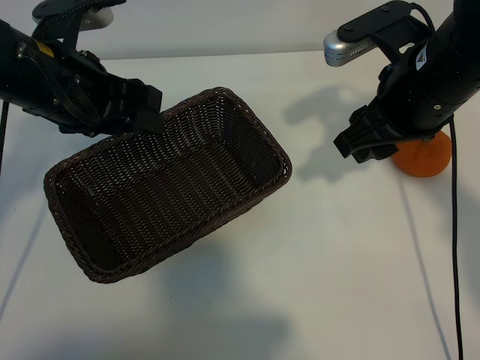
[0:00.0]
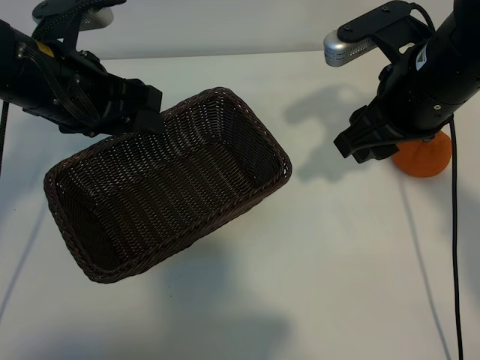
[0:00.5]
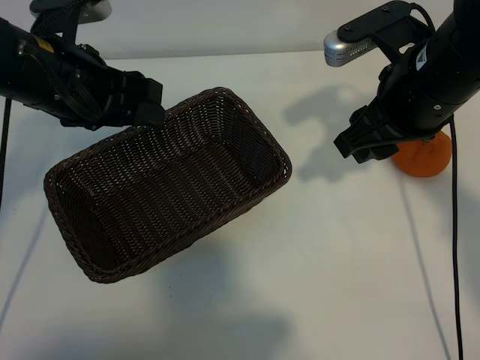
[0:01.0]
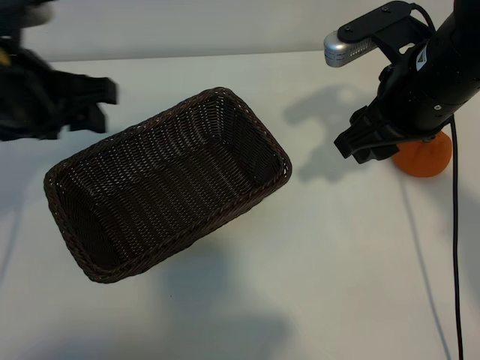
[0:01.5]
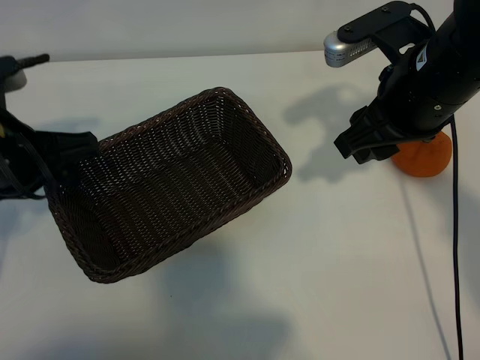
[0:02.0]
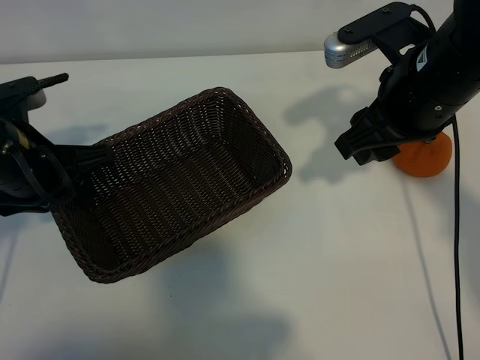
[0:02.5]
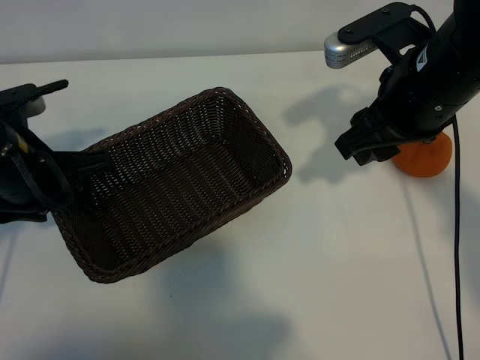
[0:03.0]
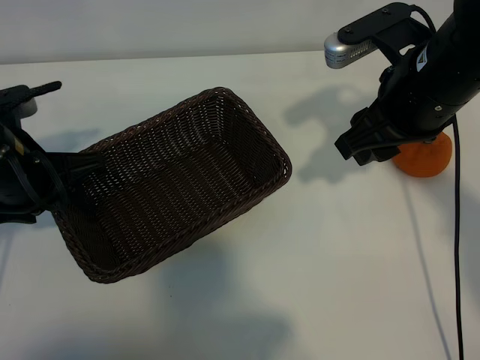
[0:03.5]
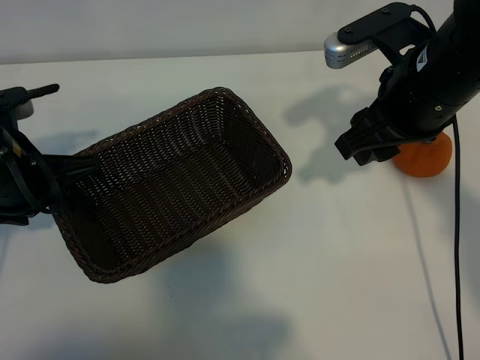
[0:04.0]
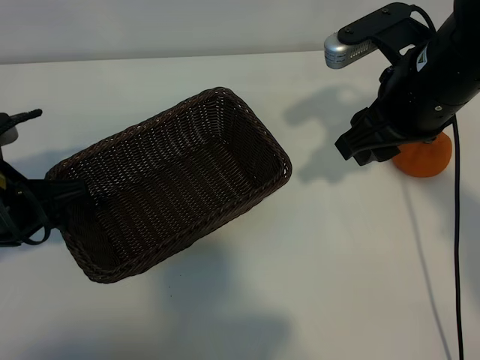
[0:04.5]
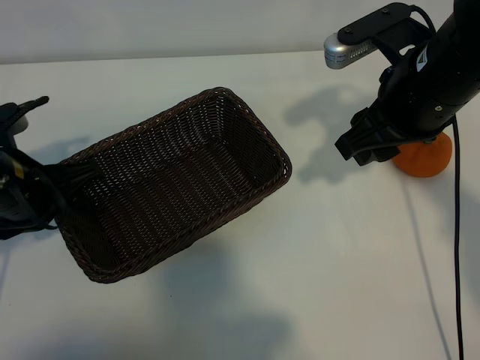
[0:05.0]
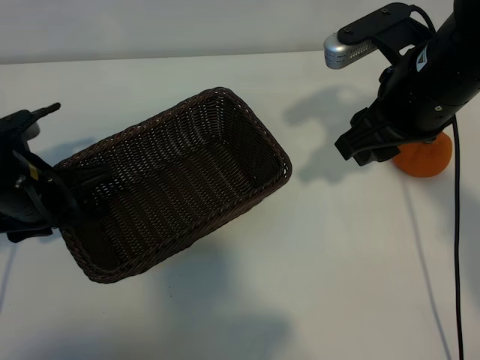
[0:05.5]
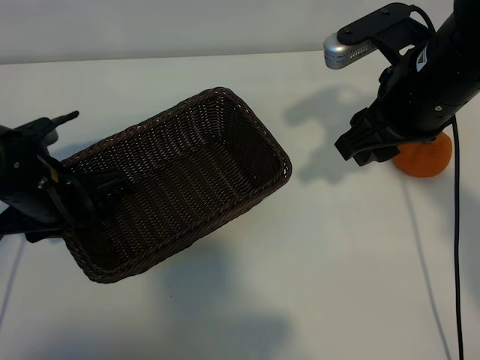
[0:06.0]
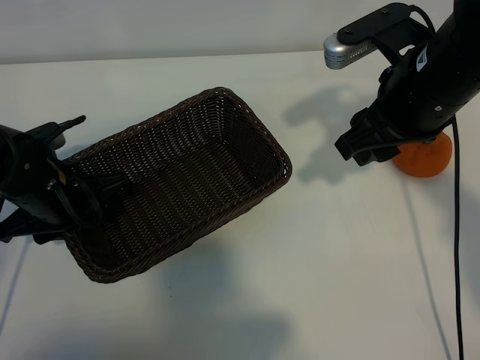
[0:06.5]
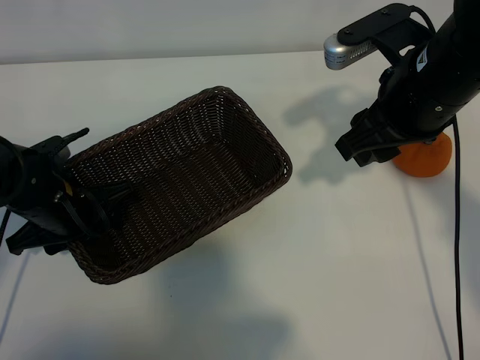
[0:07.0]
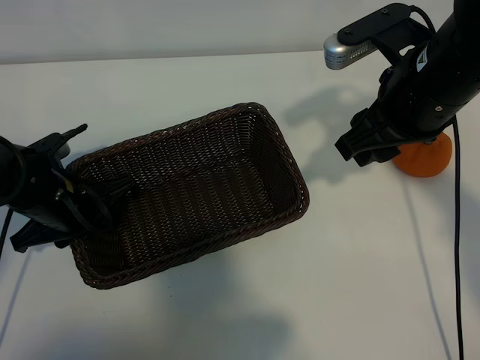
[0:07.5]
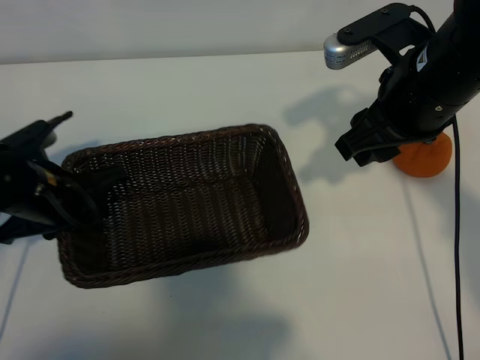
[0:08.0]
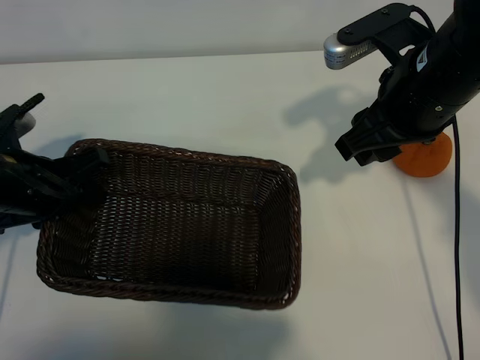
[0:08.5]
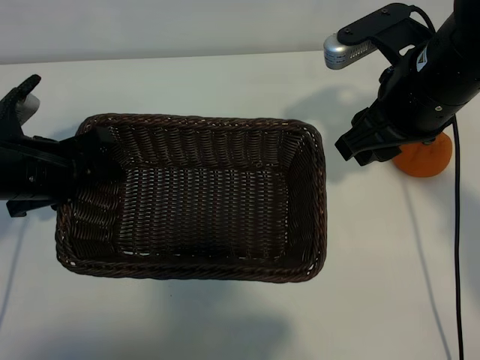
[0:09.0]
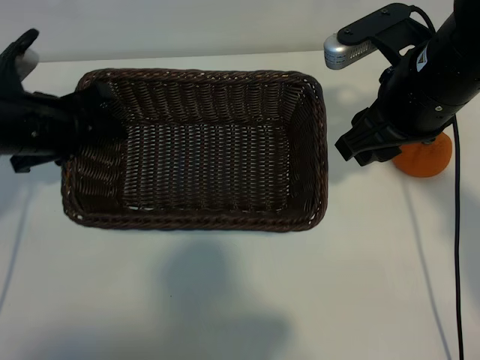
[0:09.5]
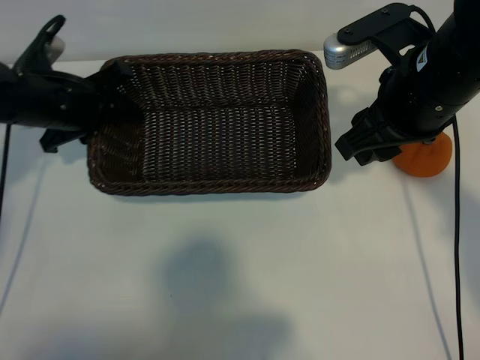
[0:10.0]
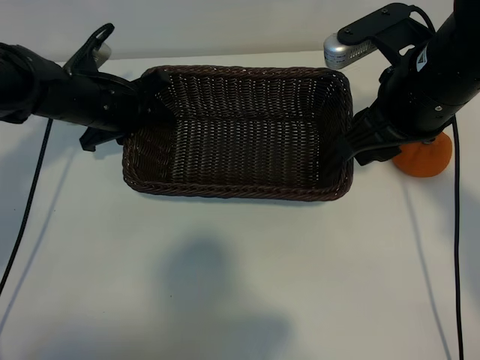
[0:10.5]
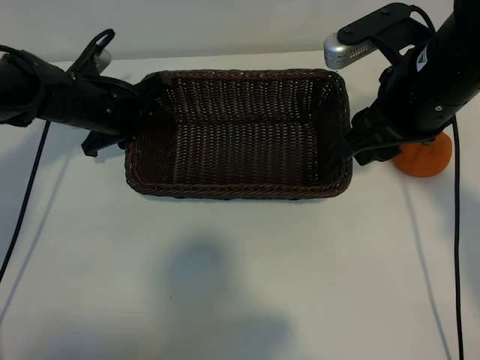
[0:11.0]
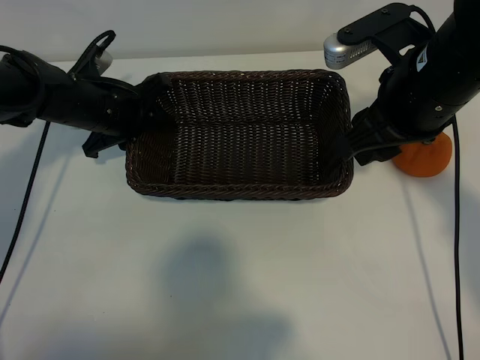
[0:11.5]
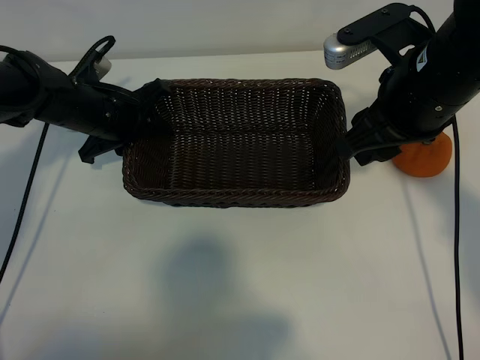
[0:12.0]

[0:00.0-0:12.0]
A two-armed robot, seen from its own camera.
Task of the whole recording: pick up the orange and put it into the basket.
Step, 0:01.0 to 0:07.5: Grasp the basket with left gripper.

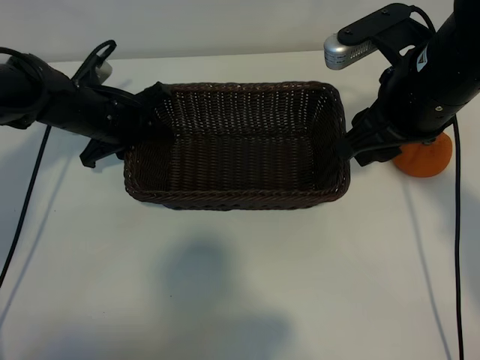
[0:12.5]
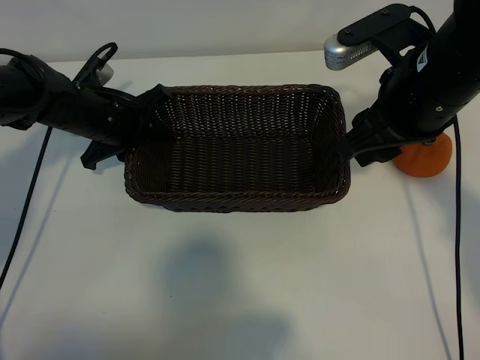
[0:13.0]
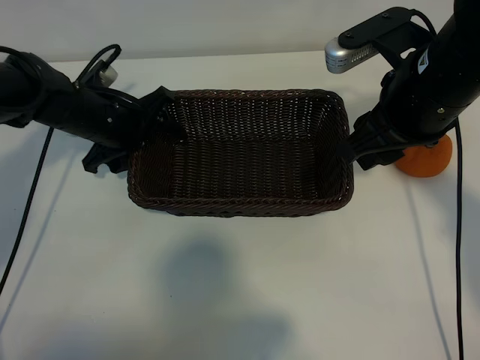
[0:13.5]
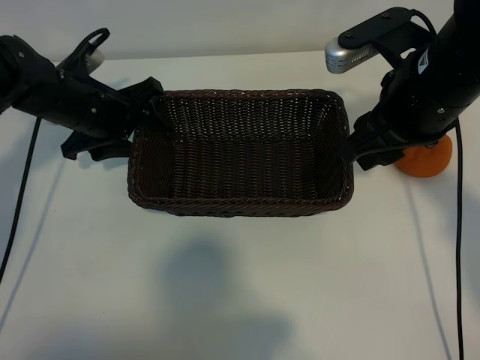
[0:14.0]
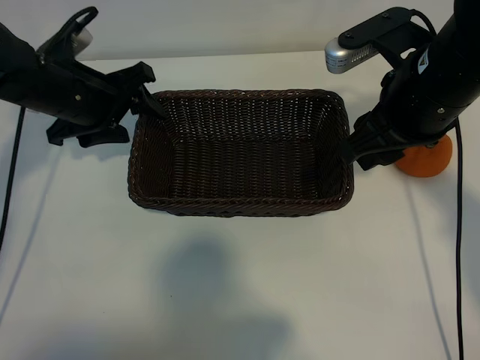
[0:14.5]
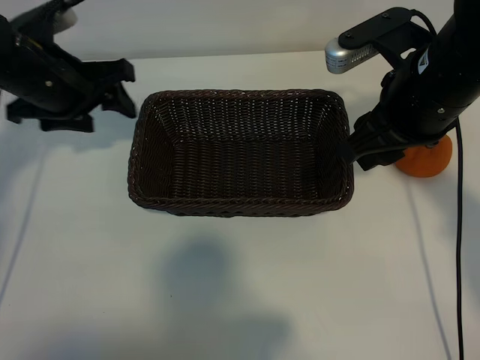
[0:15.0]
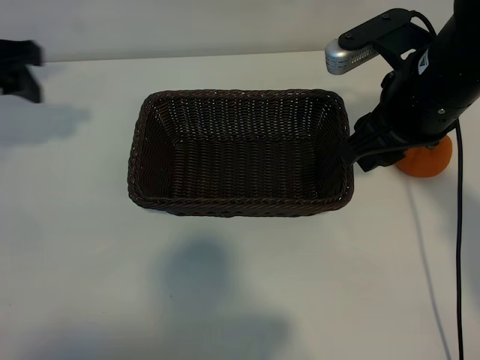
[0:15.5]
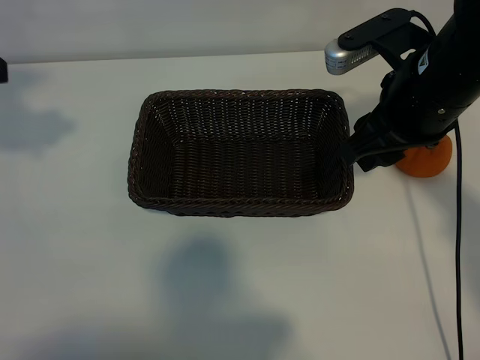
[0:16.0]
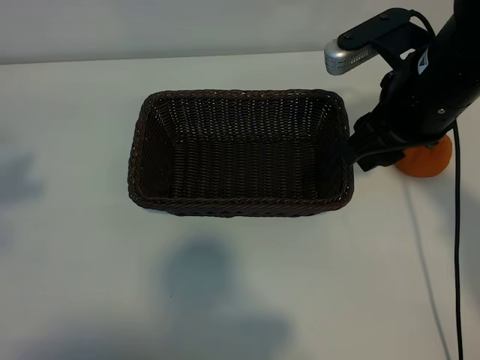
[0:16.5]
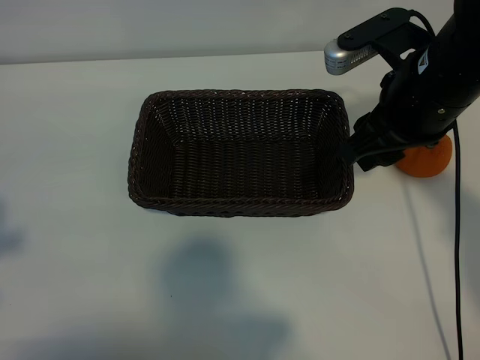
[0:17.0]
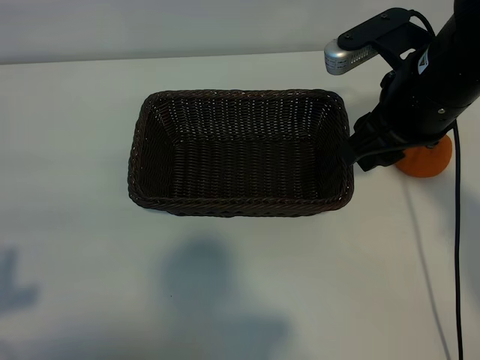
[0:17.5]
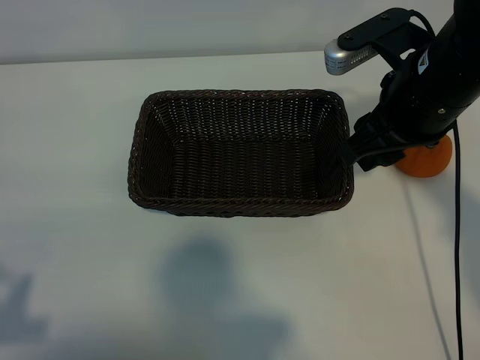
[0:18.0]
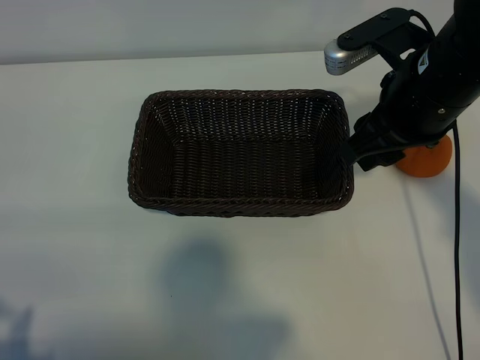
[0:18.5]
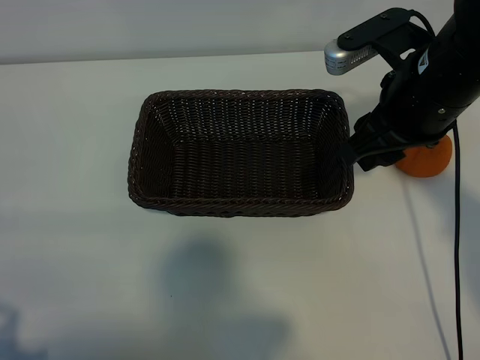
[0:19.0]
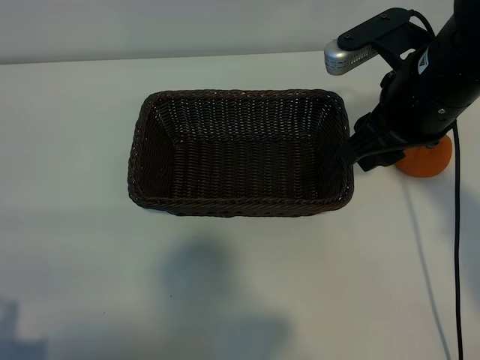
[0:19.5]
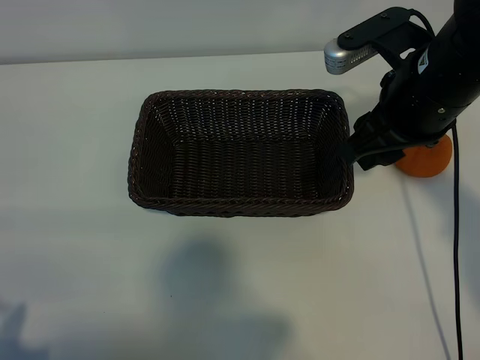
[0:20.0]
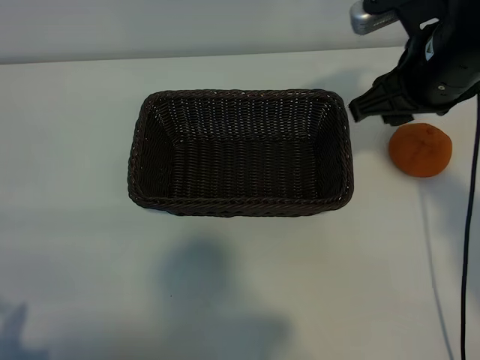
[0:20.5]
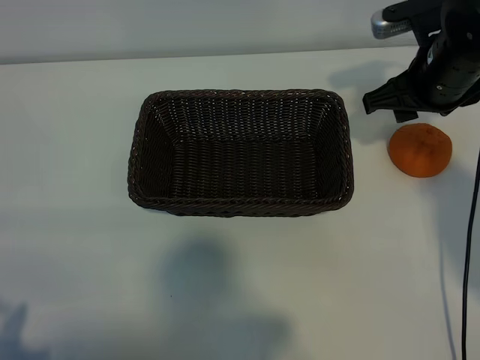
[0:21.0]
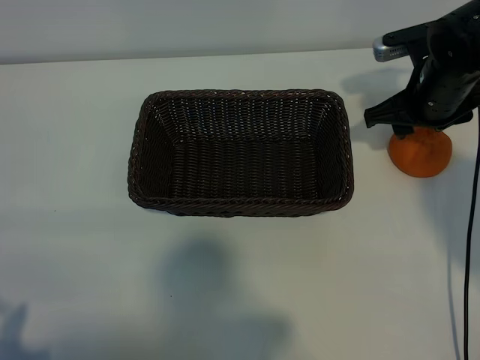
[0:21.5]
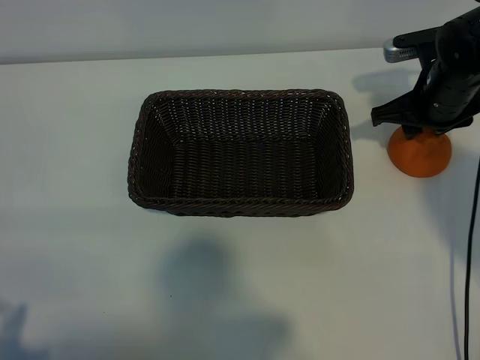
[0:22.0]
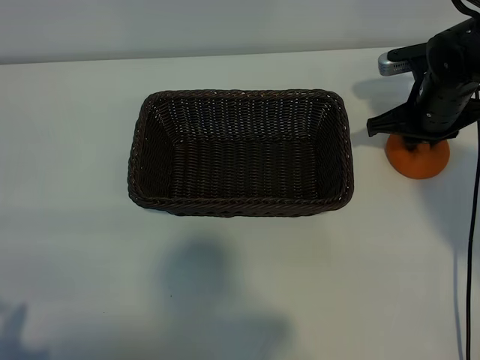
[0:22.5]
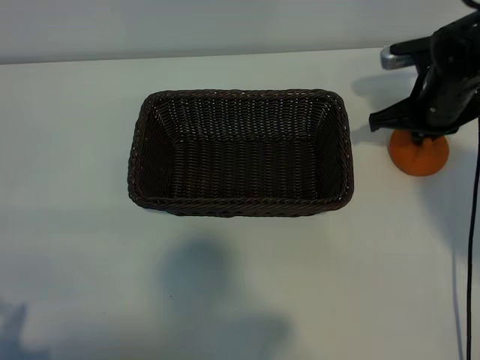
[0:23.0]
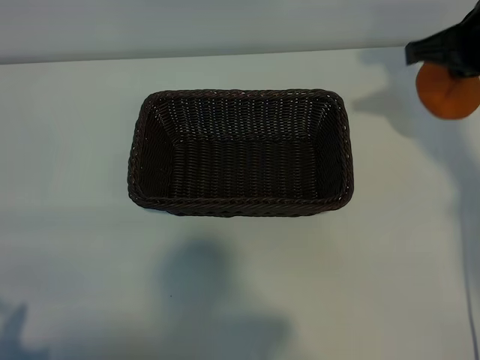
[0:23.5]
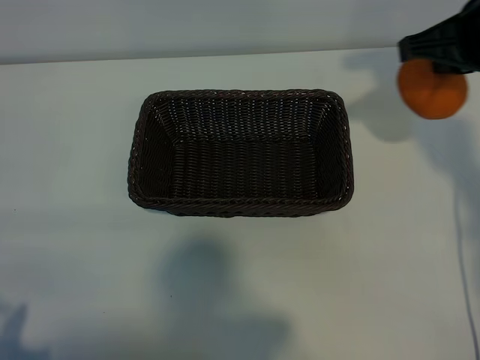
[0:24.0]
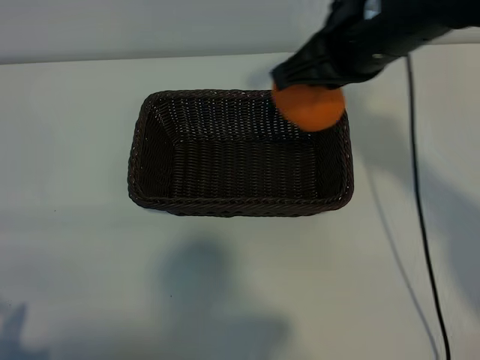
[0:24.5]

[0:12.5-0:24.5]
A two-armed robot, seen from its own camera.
Task of the whole recording: pick up the orange and put it into the basket.
Step, 0:13.5 to 0:22.5: Grasp the orange with right gripper.
